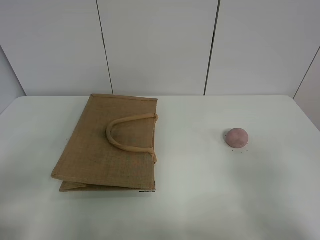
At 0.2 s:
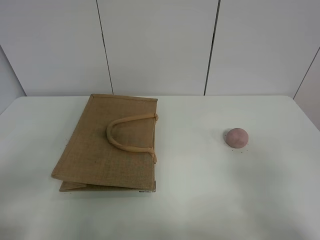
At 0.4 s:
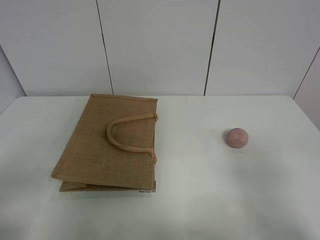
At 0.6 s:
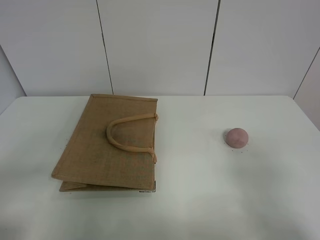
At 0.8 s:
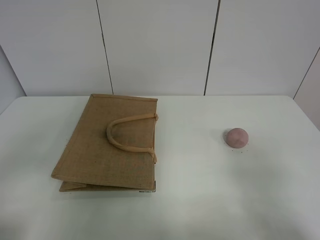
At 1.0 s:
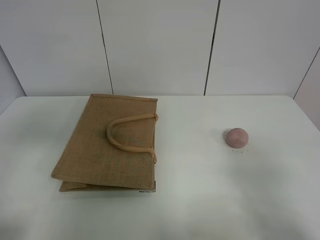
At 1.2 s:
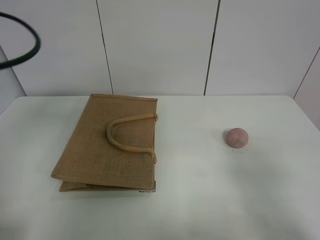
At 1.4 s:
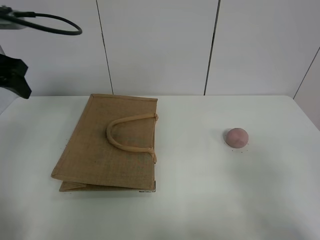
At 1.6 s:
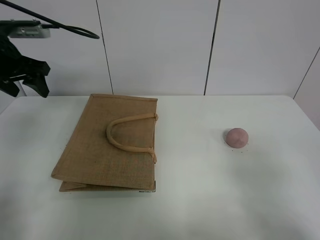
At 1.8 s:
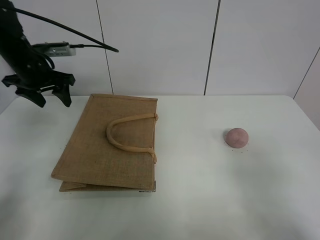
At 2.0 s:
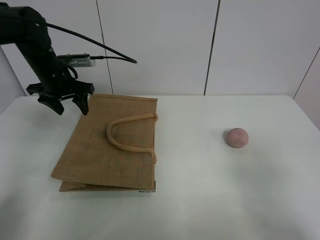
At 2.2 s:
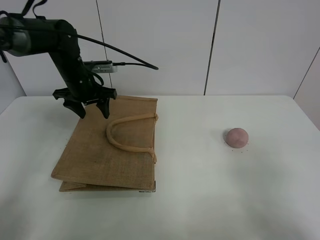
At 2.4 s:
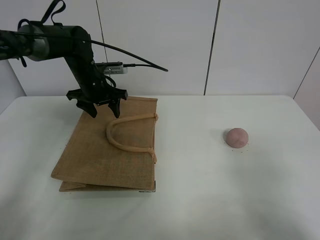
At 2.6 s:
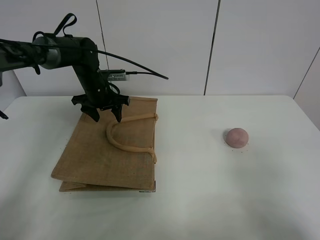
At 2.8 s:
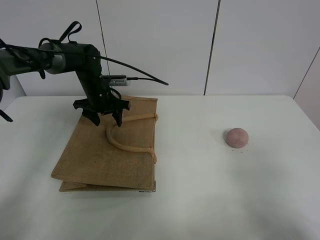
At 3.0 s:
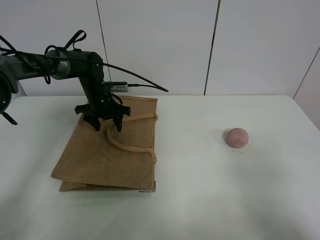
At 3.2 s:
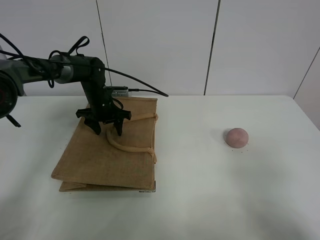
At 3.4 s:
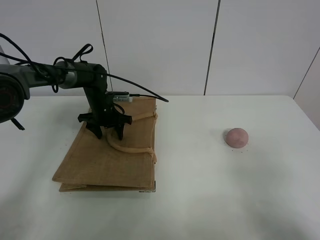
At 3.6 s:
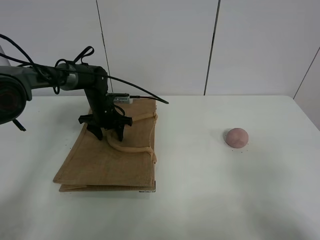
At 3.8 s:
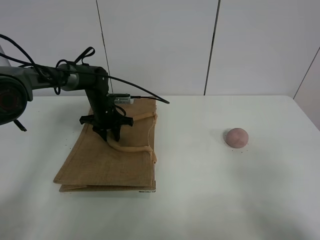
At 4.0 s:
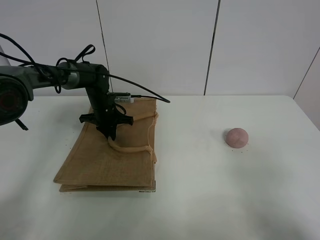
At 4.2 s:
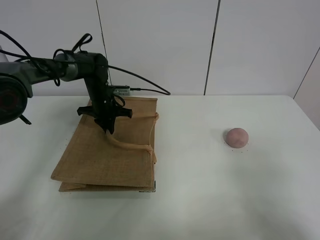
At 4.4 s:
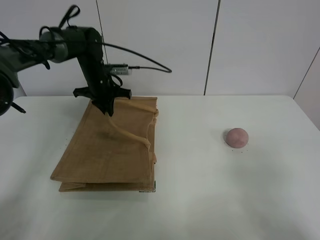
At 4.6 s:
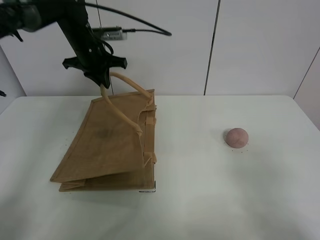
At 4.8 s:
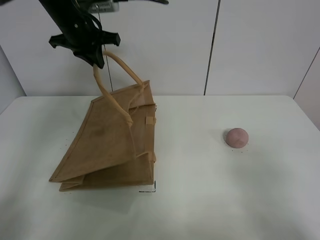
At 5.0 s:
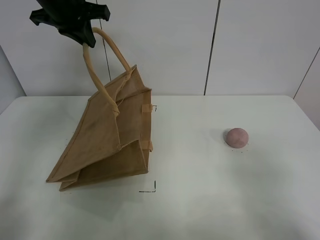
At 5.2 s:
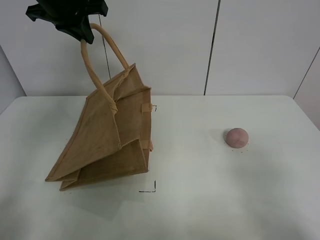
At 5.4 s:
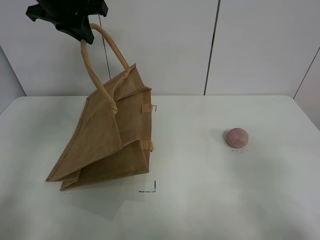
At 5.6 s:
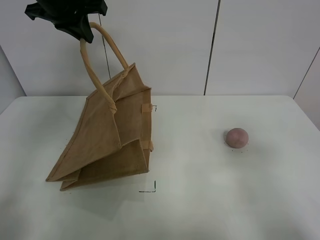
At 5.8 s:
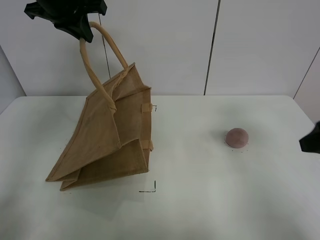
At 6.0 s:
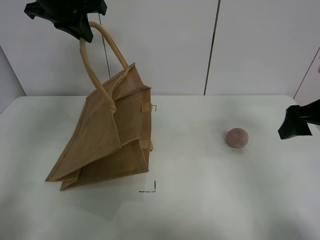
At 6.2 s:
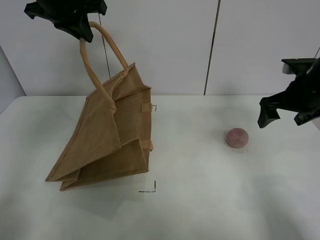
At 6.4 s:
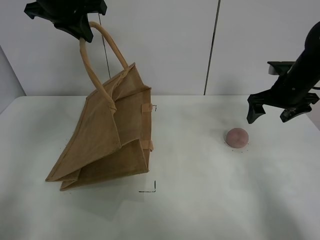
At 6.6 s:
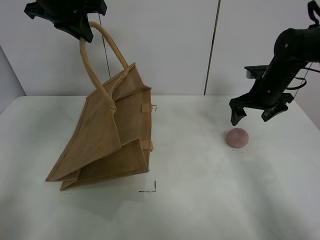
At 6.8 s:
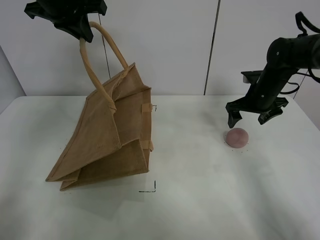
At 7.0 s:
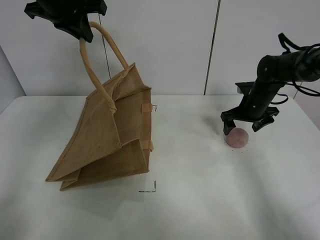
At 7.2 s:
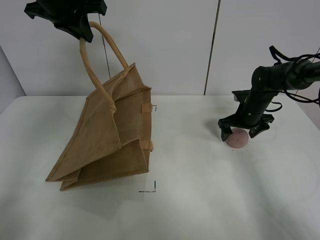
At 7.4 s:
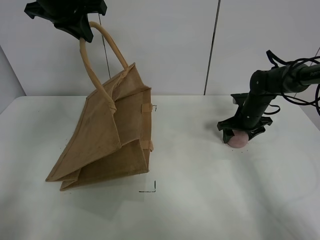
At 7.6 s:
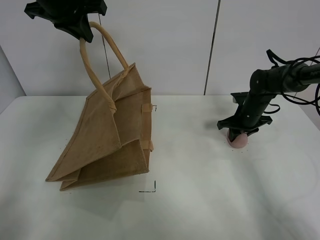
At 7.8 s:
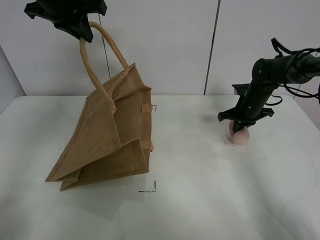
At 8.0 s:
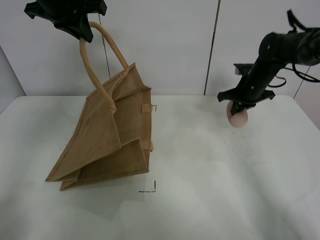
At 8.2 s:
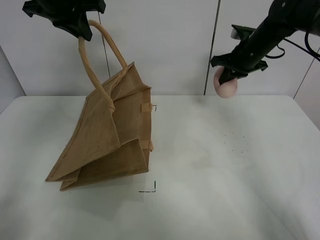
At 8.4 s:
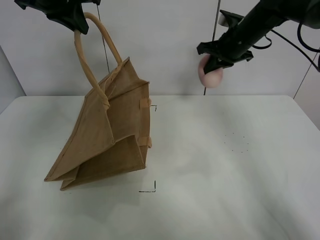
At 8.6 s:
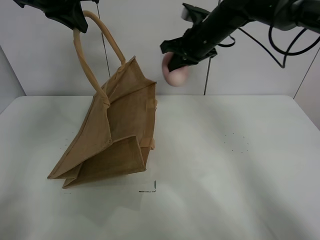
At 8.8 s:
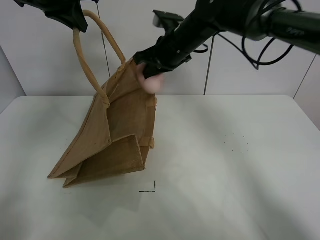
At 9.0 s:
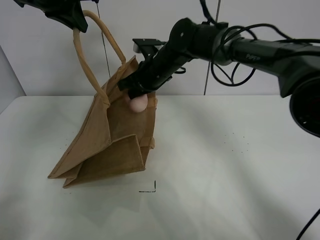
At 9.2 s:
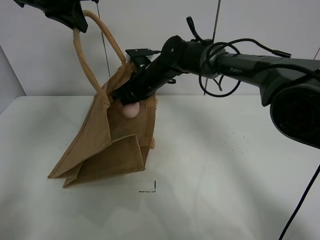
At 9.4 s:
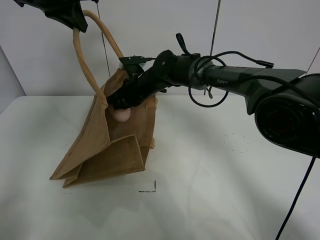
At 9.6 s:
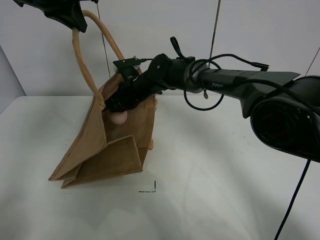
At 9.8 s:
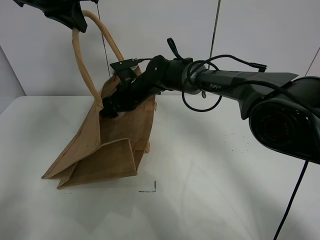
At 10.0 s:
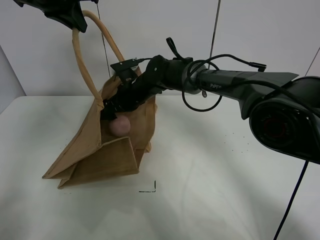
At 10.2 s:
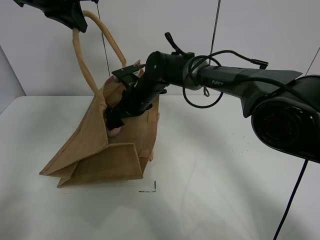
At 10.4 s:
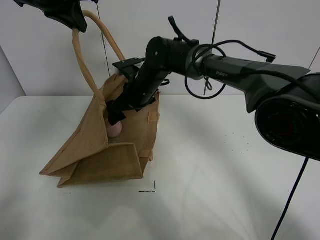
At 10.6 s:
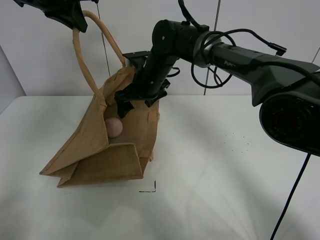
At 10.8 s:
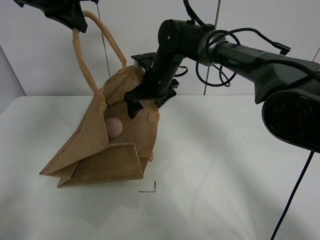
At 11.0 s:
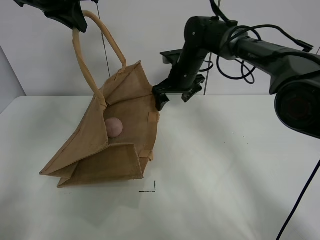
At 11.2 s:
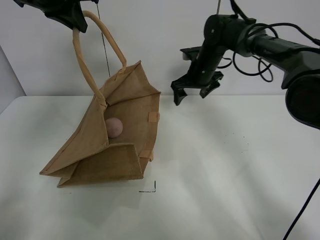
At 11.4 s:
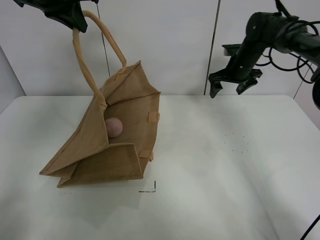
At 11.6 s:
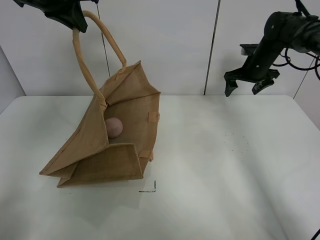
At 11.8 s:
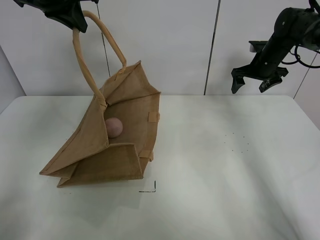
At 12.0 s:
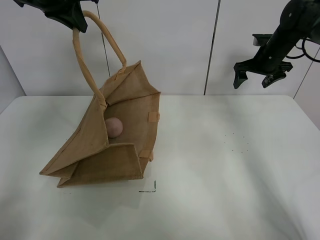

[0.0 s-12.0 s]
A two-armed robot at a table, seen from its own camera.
Task of the whole recording: open the brown linen bag and put the peach in the bag.
Step, 0.0 to 5.2 s: Lift the handbag with left gripper.
Step, 5.4 to 7.6 s: Grasp the peach with right gripper.
Step, 7.8 to 11.0 s: Place the peach in the handbag with right gripper.
0.0 to 1.6 s: The left gripper moves forward, roughly 35 cm.
1.6 to 3.0 s: The left gripper travels downward, to the right and forward by roughly 25 cm.
3.0 to 4.4 s: The left gripper is displaced upward by about 5 cm, and closes.
4.4 to 6.0 s: The left gripper is displaced upward by approximately 20 cm. Meanwhile the right gripper is displaced forward by some 25 cm.
6.0 to 7.6 s: The right gripper travels forward and downward by approximately 25 cm, and closes up.
7.6 to 9.0 s: The right gripper travels to the left and upward by about 30 cm.
9.0 to 10.4 s: The right gripper opens its fingers.
10.4 to 12.0 s: The right gripper heads to the right, covering approximately 30 cm.

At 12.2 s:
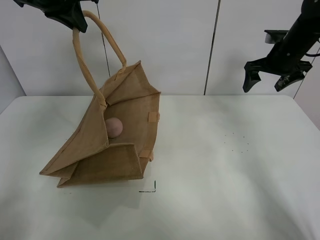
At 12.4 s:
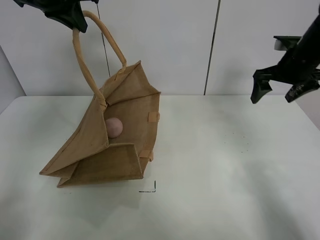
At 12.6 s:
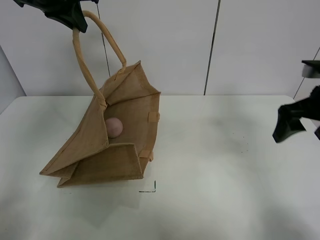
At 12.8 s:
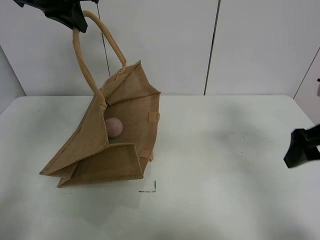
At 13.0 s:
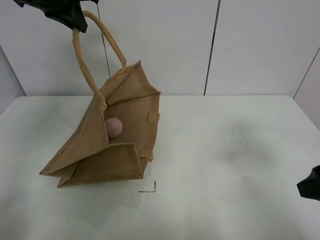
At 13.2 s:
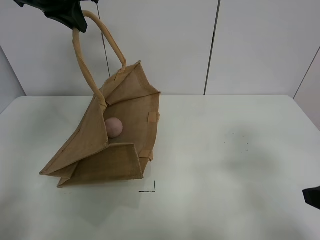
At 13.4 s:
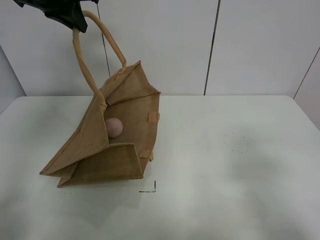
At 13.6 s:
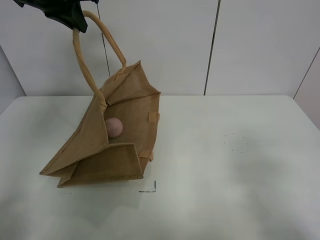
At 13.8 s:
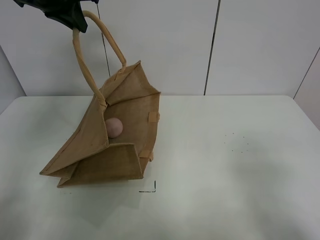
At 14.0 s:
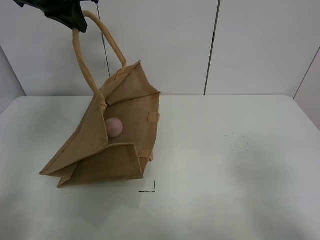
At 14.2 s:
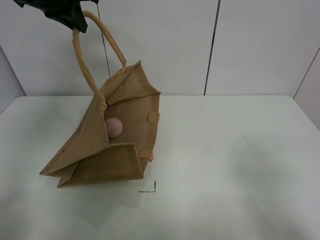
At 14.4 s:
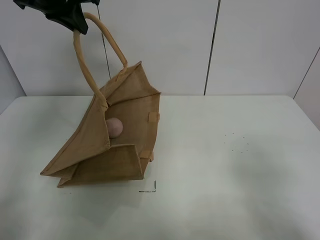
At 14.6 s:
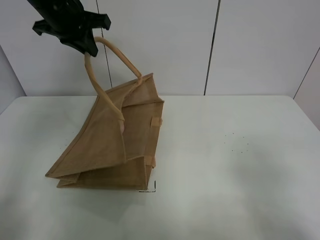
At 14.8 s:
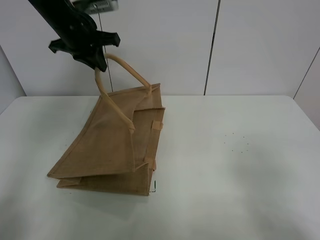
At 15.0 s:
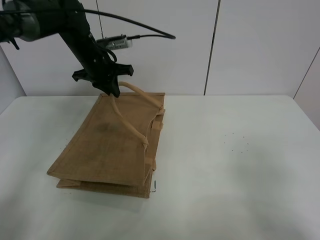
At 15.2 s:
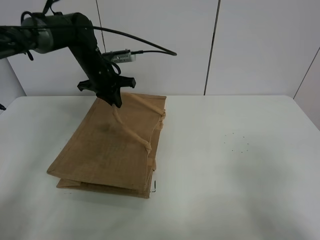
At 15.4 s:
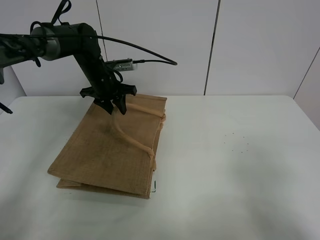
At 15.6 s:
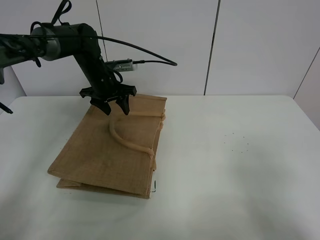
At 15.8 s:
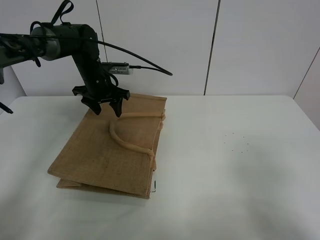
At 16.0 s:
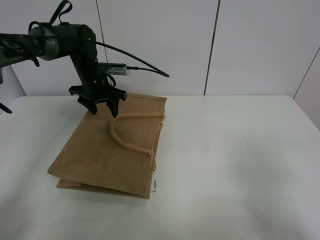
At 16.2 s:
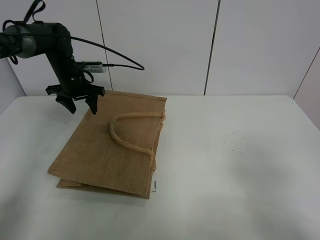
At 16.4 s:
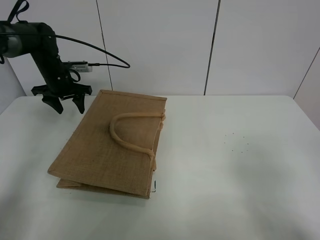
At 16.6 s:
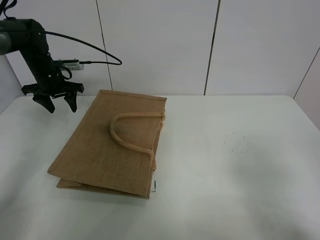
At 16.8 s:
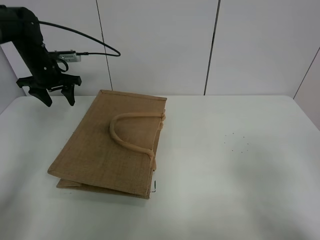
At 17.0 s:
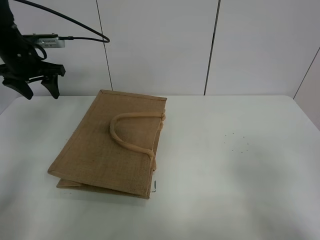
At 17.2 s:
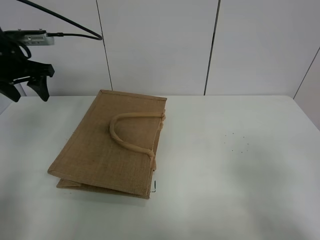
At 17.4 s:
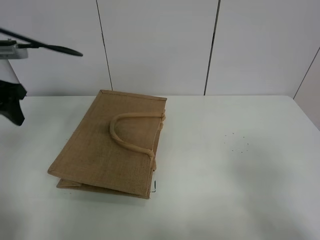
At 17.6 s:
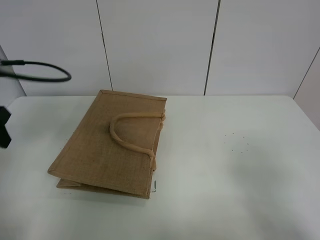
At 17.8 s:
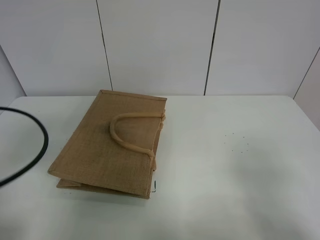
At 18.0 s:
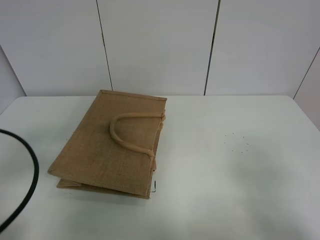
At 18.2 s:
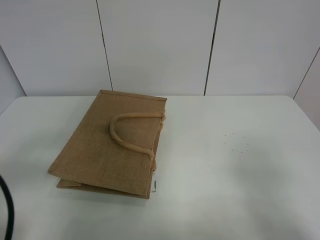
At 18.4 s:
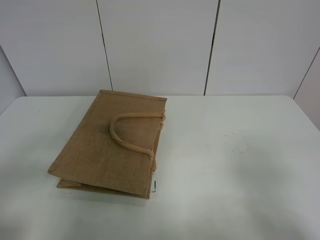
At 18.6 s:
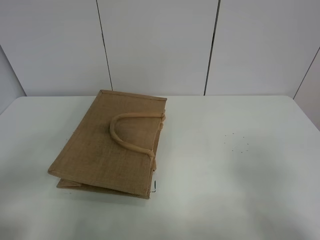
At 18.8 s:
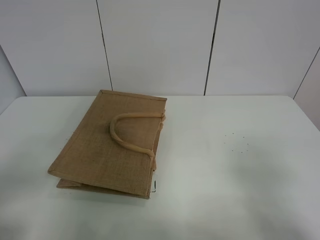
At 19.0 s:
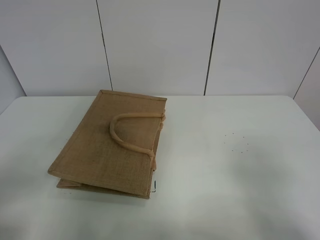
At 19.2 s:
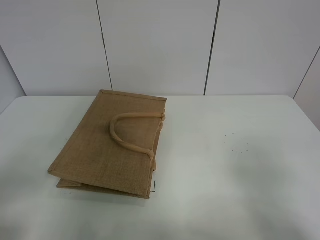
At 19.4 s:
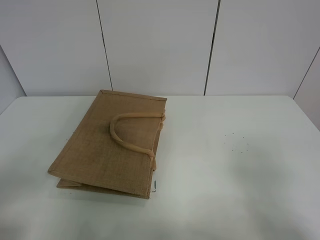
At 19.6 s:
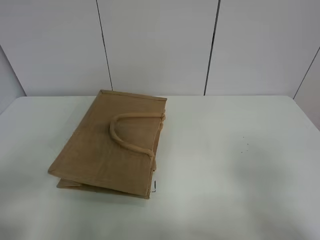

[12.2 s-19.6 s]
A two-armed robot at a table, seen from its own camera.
Task of the whole recording: open the brown linen bag and put the peach in the bag.
Step, 12.2 to 16.4 s: Put down the handbag with left grippe.
12.2 to 13.6 s: The right gripper shifts about 40 cm backward.
13.6 to 15.2 s: The left gripper shifts roughly 20 cm downward.
15.2 to 16.6 s: The left gripper travels to the left by approximately 15 cm, and opens.
16.6 to 18.2 s: The left gripper travels backward by approximately 40 cm.

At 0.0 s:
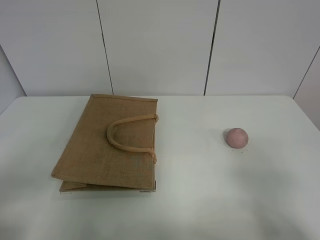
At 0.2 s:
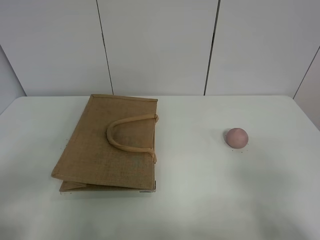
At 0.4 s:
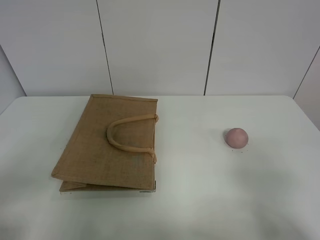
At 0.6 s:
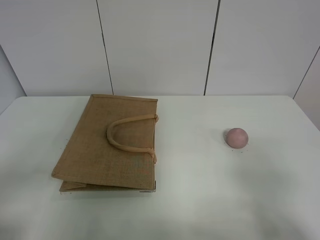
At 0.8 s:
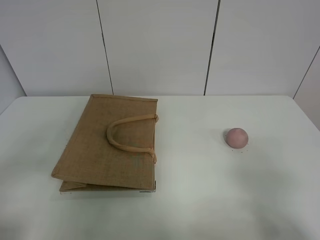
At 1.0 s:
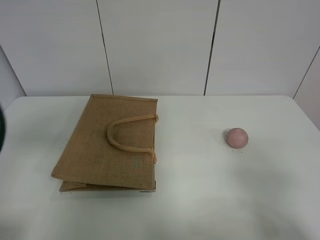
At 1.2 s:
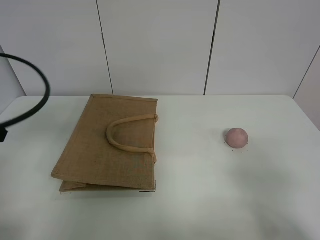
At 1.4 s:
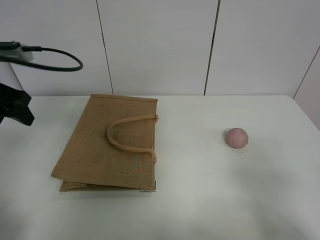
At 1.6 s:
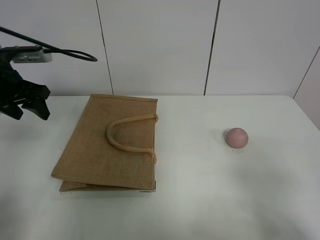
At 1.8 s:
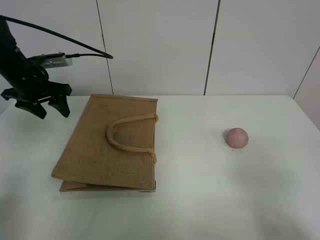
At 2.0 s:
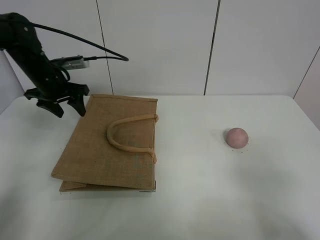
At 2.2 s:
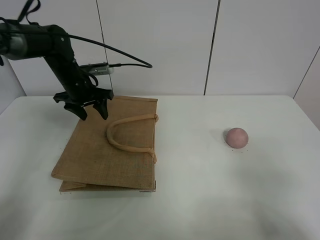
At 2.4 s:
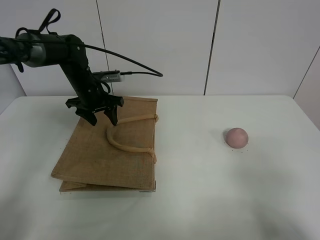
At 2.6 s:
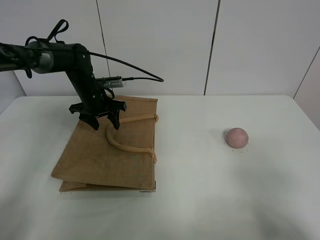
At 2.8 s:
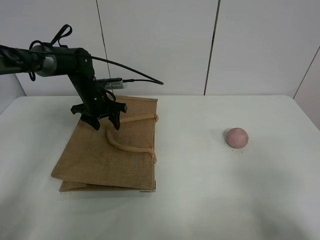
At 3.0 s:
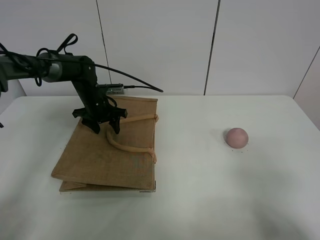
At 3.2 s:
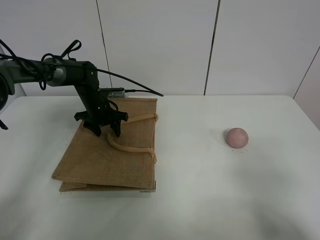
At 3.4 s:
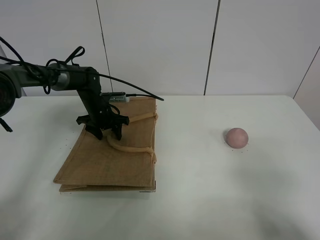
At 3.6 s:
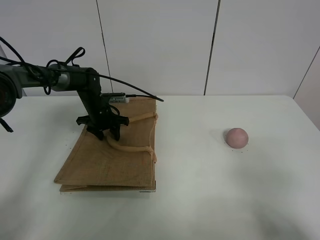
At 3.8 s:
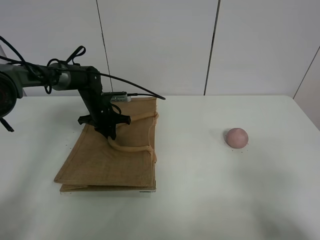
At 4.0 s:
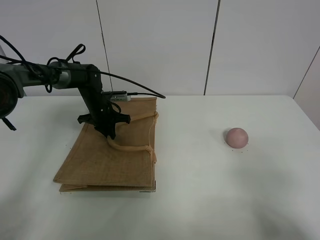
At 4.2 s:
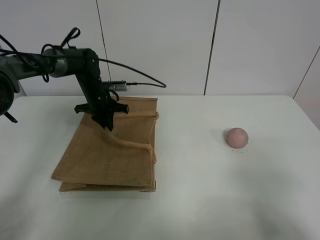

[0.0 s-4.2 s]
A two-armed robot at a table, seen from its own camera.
Task of the whole recording: open the brown linen bag and put the peach in the bag.
0.0 to 1.4 s: The left gripper travels forward by roughly 30 cm.
1.4 to 2.8 s: The left gripper shifts about 25 cm forward, downward and to the right.
2.8 to 4.2 s: The left gripper closes its fingers.
